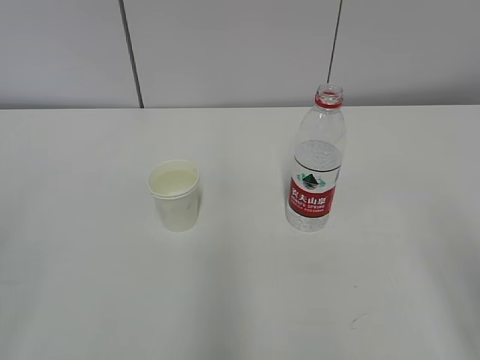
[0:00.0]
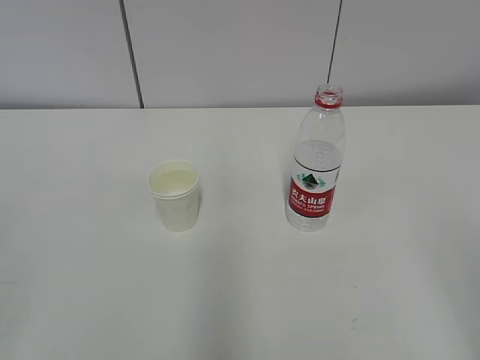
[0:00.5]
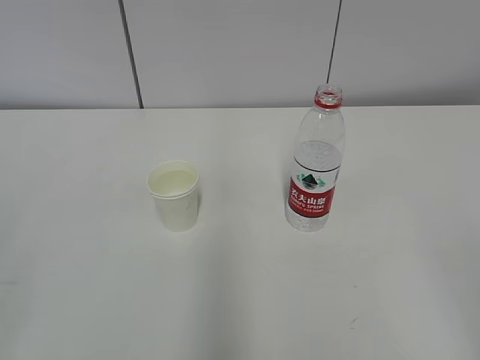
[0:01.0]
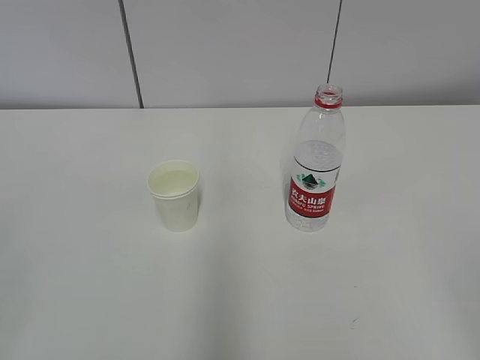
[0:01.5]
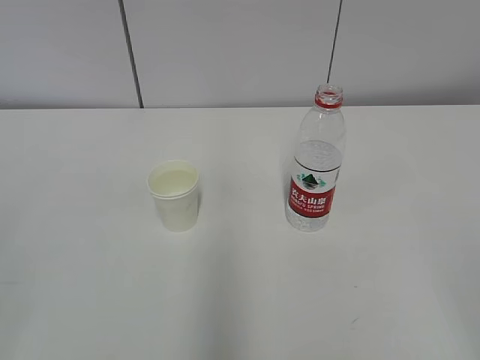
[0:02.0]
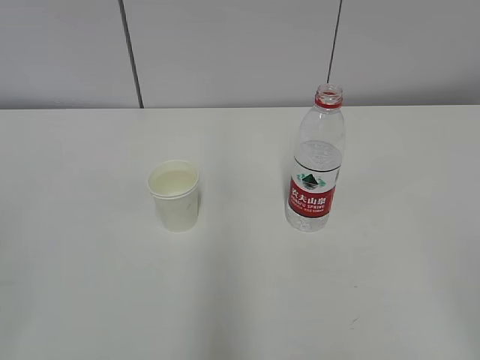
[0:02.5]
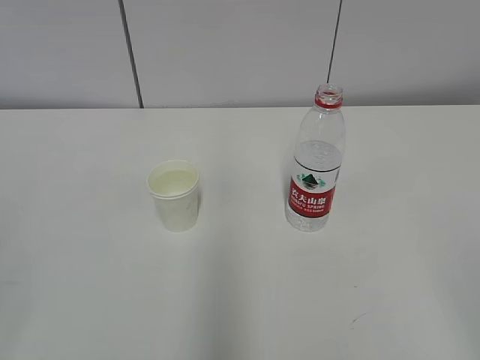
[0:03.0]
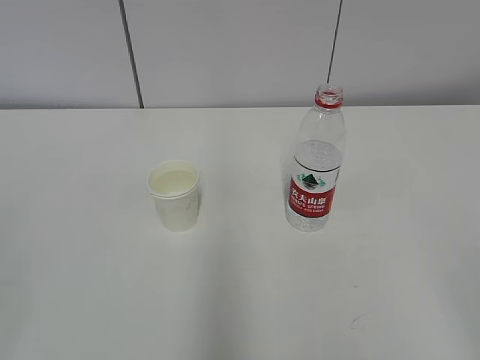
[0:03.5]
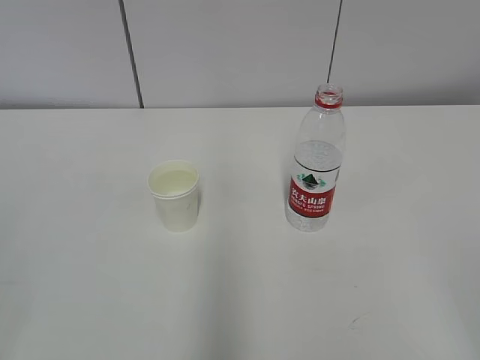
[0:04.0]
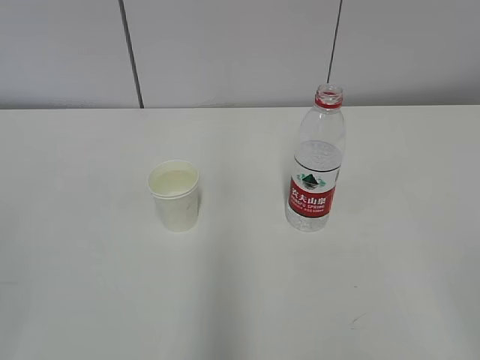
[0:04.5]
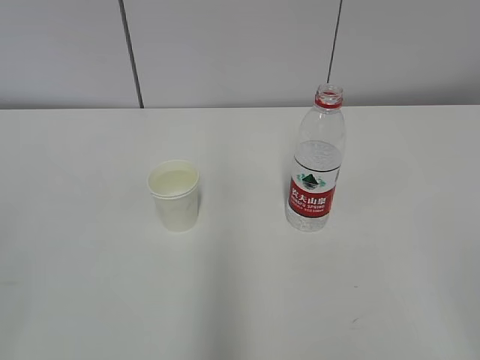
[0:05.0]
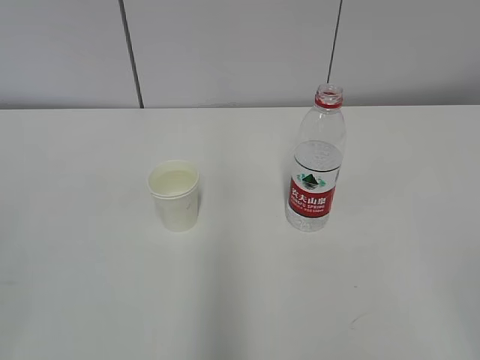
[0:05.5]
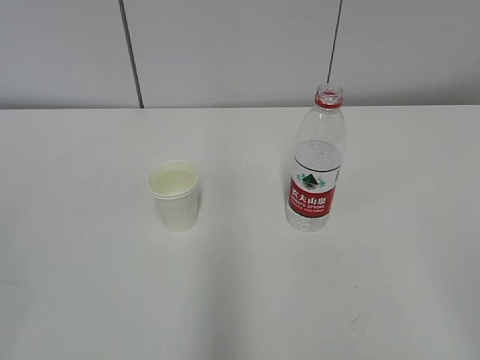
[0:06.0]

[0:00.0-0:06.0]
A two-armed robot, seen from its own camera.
0:02.0 to 0:06.0: Both grippers stay about where they are.

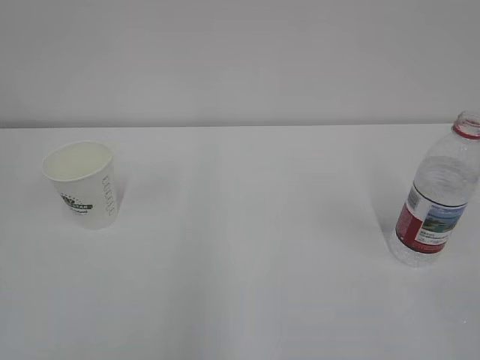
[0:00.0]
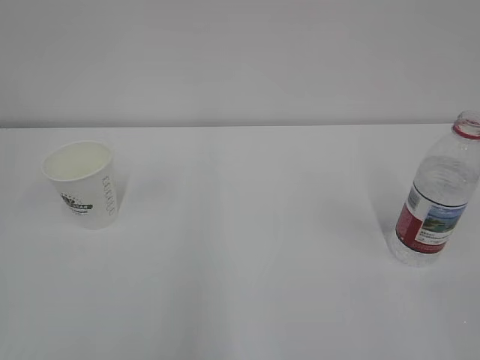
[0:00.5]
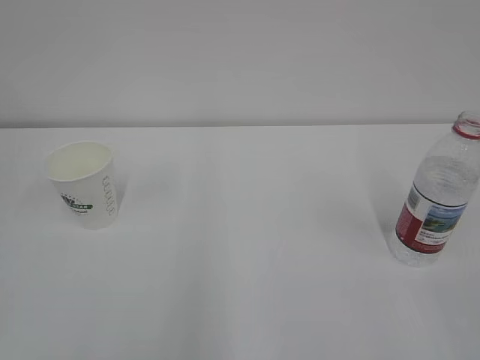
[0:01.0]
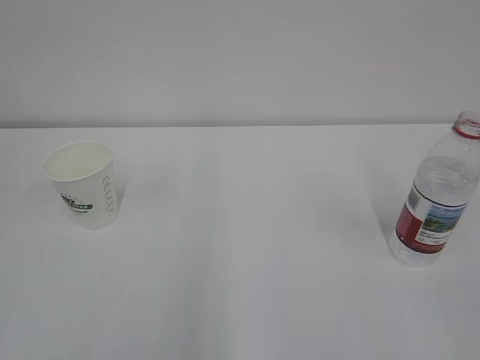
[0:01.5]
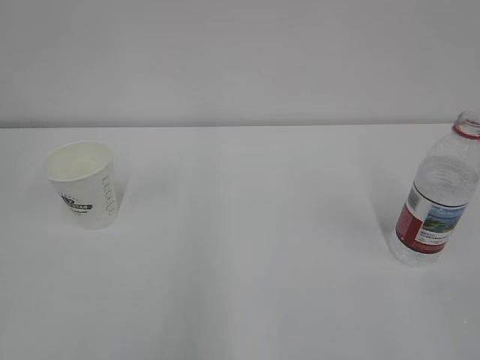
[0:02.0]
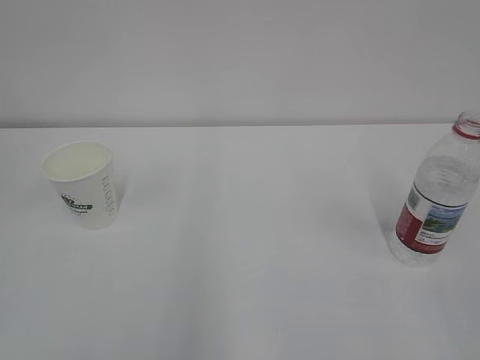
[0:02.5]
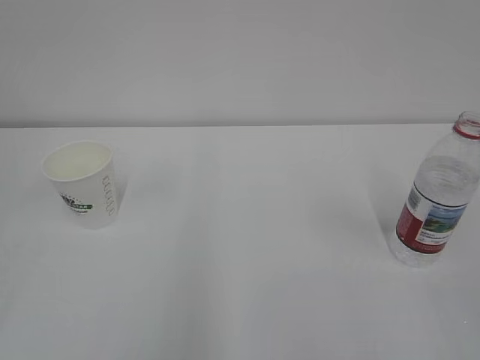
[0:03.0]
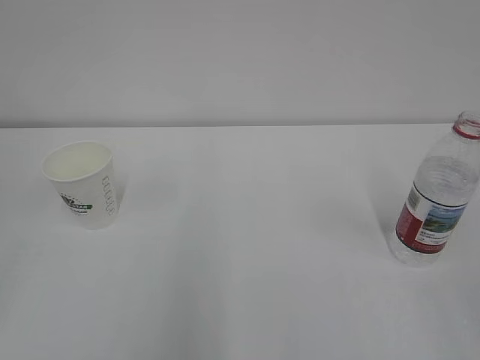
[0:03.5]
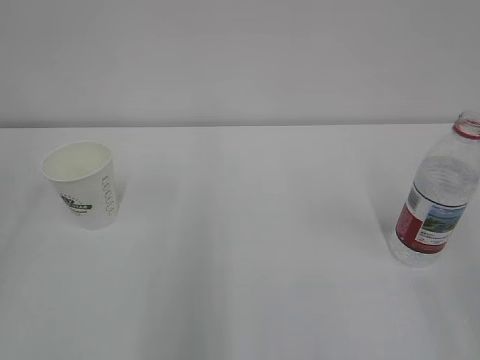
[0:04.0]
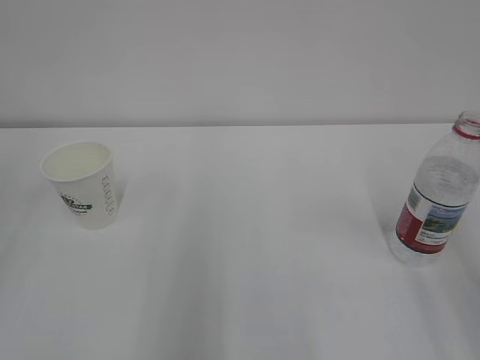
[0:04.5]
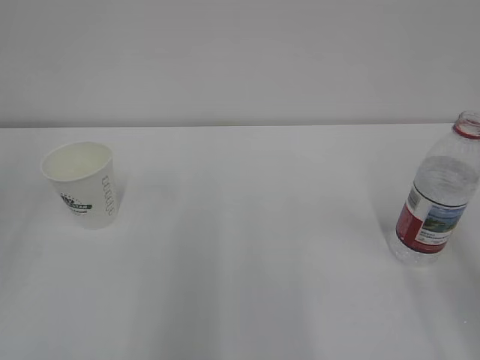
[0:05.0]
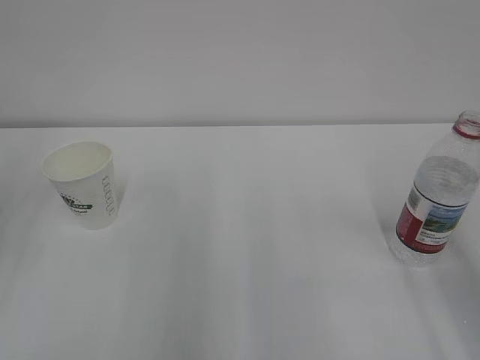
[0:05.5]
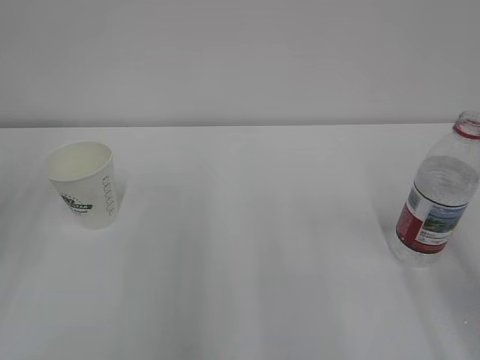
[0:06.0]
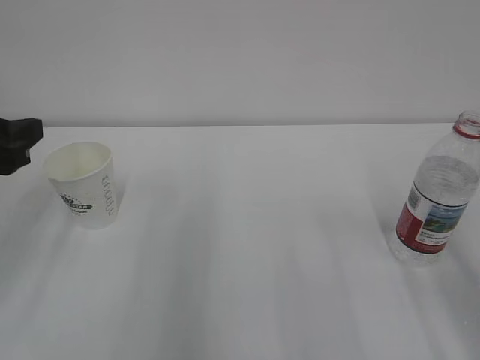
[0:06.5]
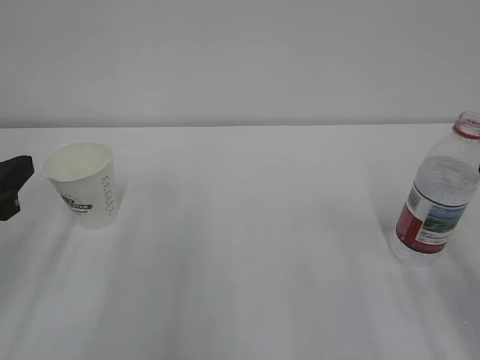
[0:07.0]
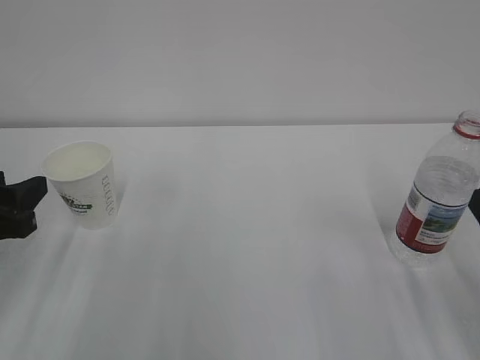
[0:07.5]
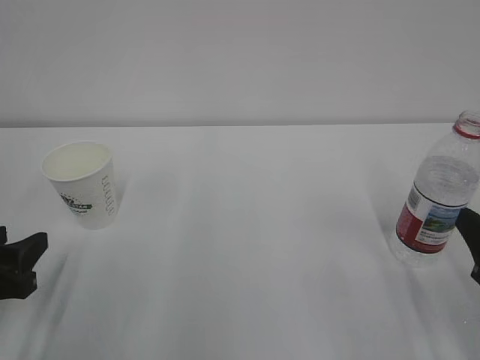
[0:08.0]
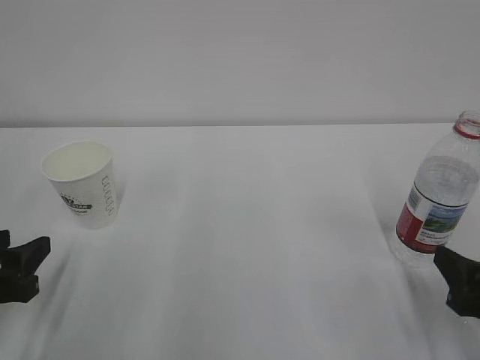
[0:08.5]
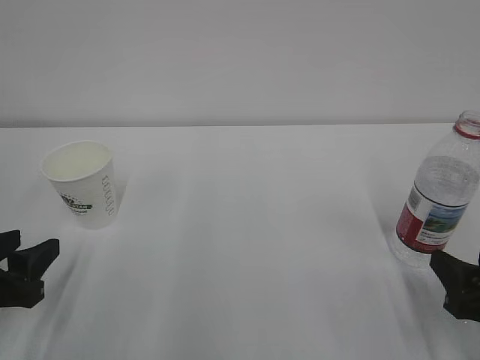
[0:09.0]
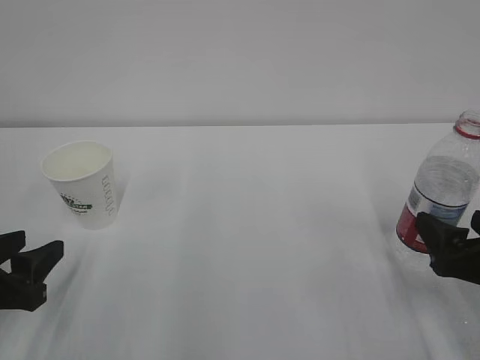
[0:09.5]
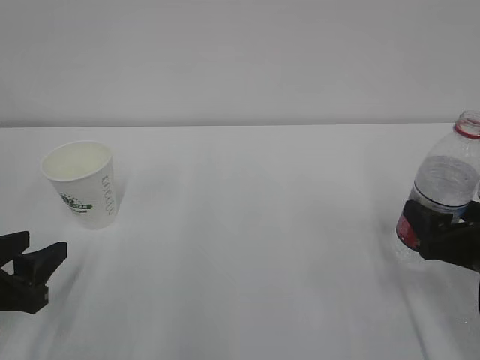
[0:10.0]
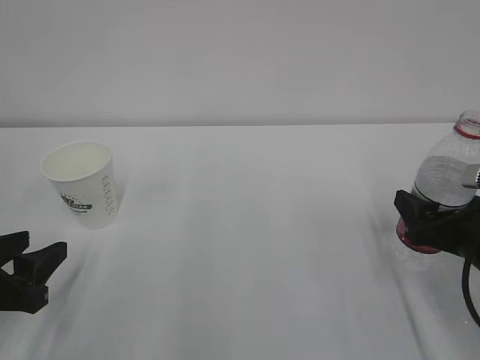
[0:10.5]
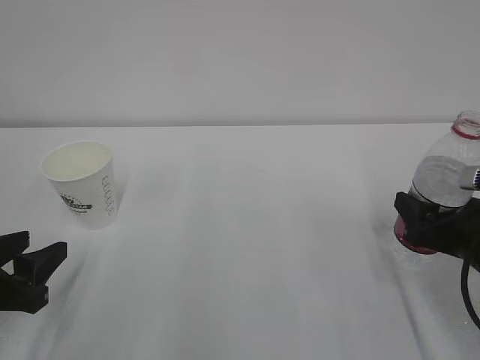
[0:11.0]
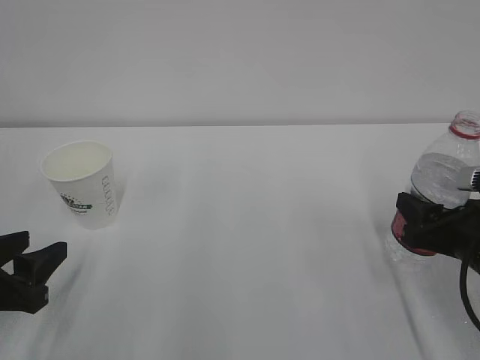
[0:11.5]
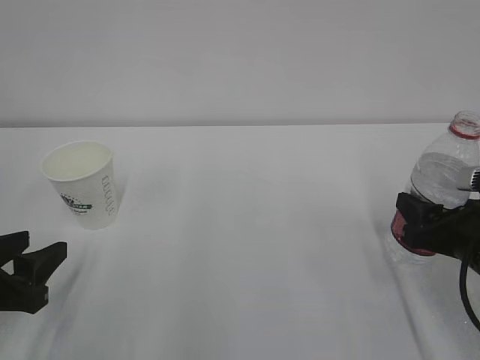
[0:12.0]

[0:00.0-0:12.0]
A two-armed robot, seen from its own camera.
0:06.0 to 0:08.0: The left gripper shifts roughly 15 cm downward.
0:08.0 to 0:10.0: The right gripper is displaced forward by approximately 5 cm, and opens its fingers.
0:10.0 to 0:12.0: The right gripper closes up.

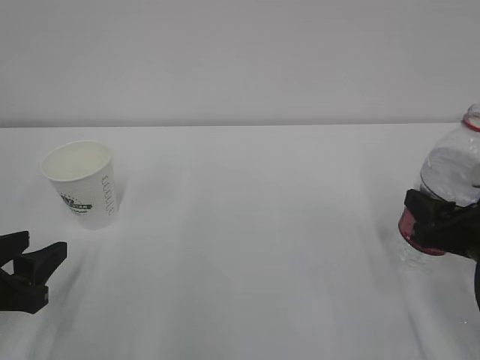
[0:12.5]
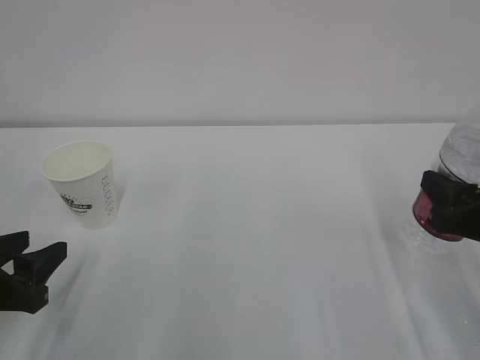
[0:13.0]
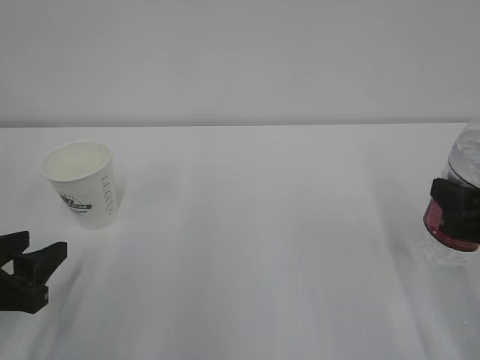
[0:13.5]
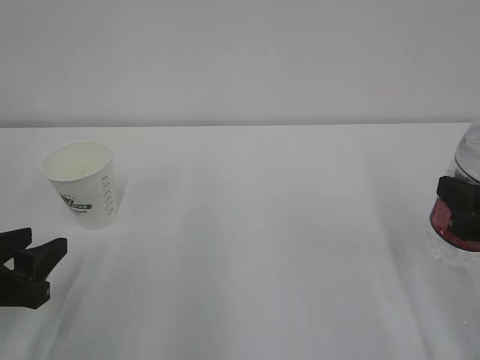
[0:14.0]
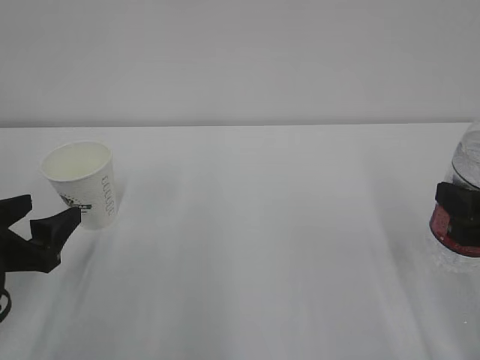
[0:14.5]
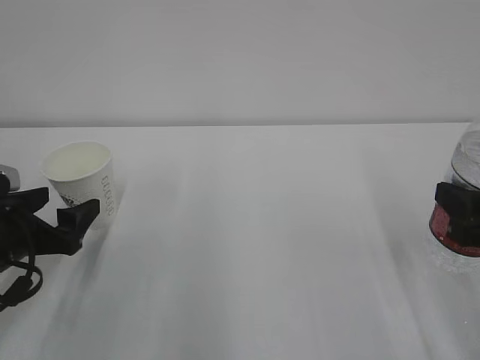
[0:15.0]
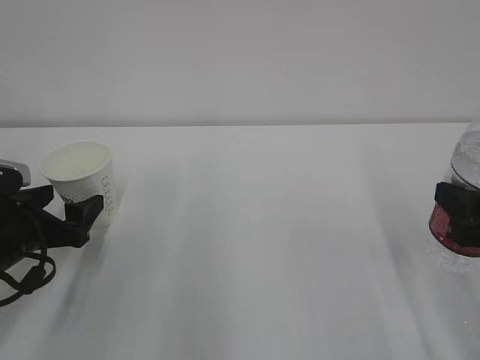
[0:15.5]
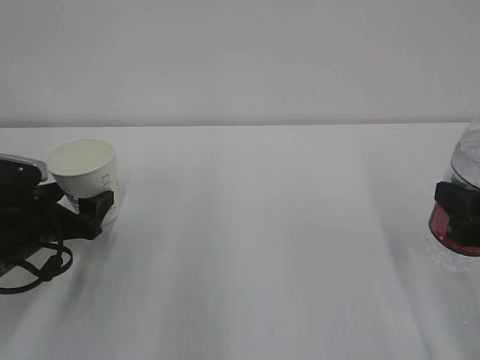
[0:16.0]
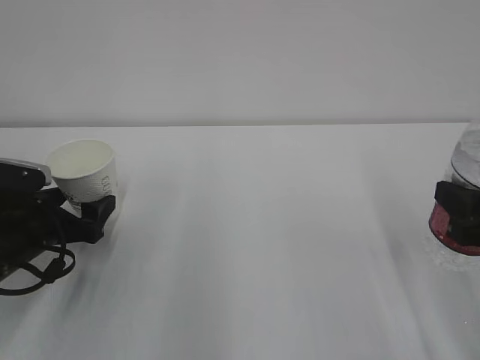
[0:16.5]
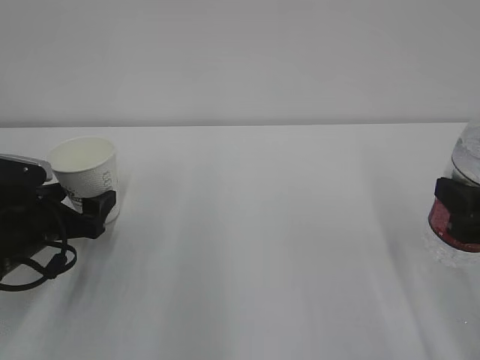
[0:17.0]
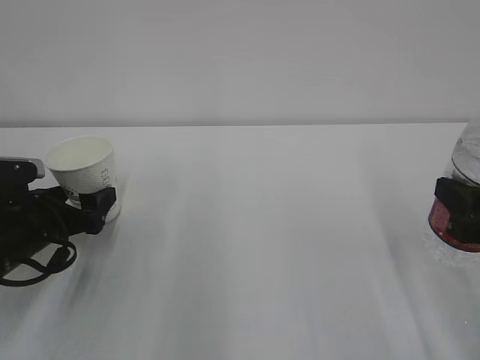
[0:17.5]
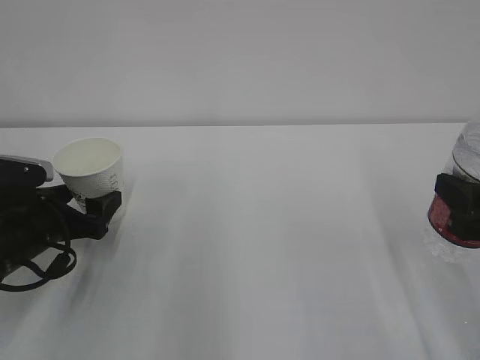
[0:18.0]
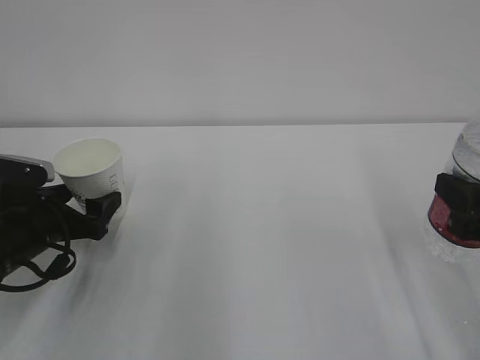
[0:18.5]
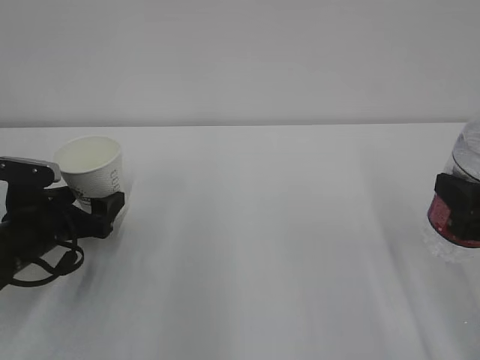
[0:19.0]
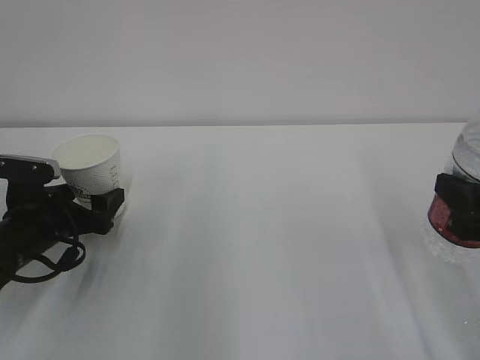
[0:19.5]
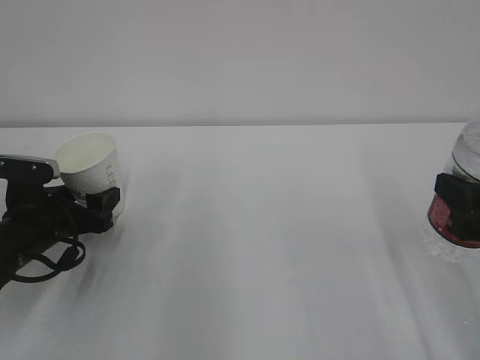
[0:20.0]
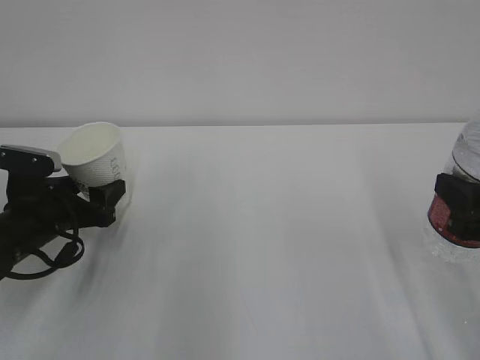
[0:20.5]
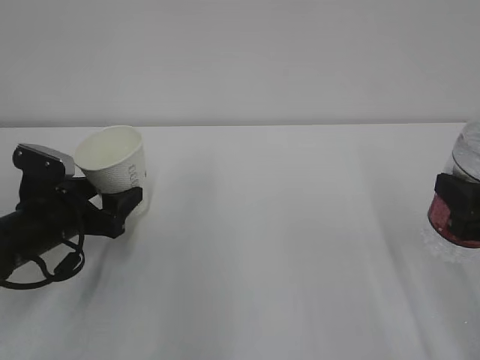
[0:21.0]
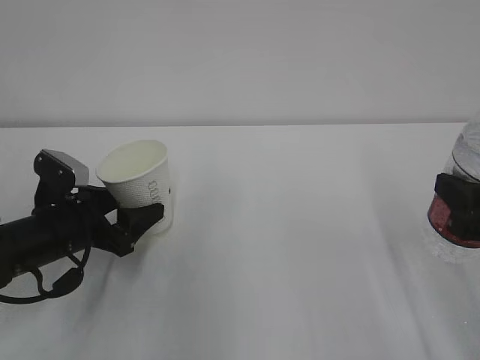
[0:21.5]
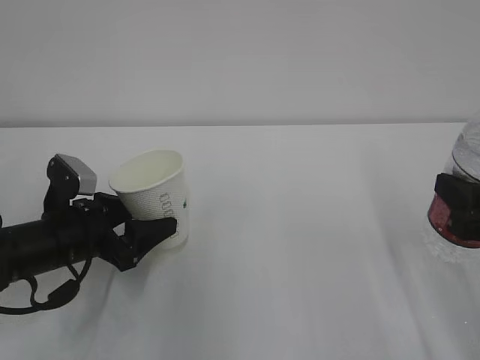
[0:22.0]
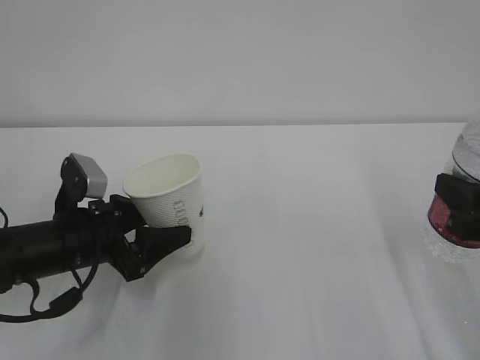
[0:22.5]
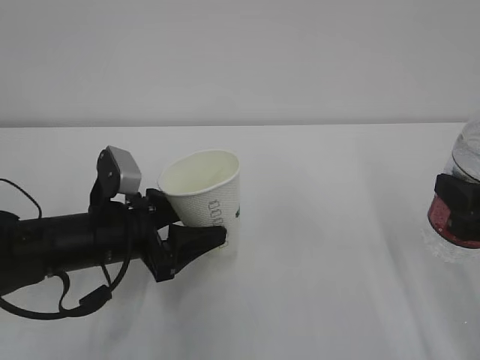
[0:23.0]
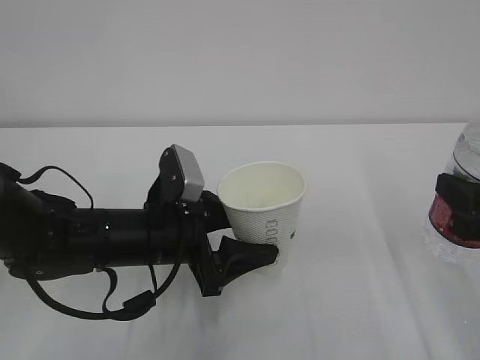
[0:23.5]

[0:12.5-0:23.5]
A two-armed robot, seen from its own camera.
0:12.5 to 0:14.5: The right gripper heads upward, covering about 5 cm. The left gripper opens up.
0:14.5 to 0:16.0: The left gripper is displaced forward by roughly 5 cm.
0:16.0 to 0:18.0: There are only small adjustments of the grippers.
0:18.0 to 0:20.0: The left gripper closes up.
0:21.5 to 0:23.5: The left gripper shifts some 10 cm to the right.
